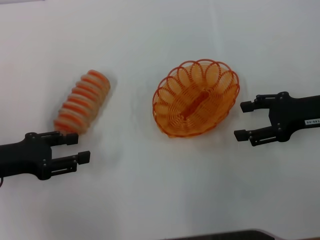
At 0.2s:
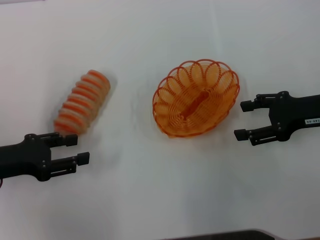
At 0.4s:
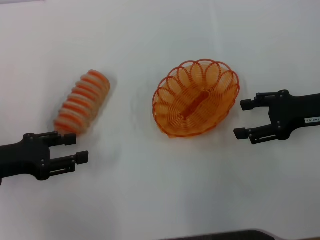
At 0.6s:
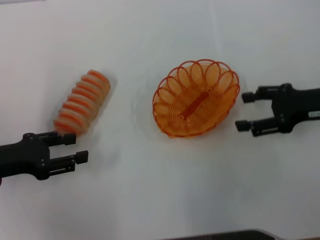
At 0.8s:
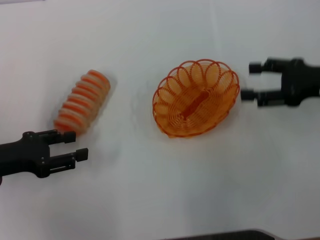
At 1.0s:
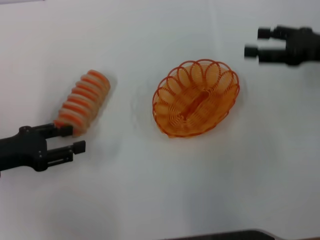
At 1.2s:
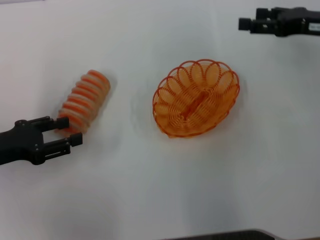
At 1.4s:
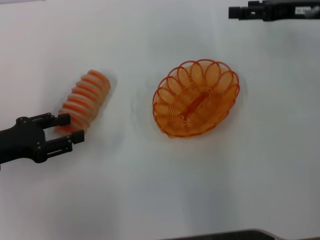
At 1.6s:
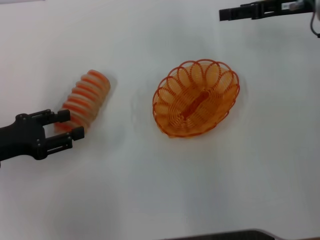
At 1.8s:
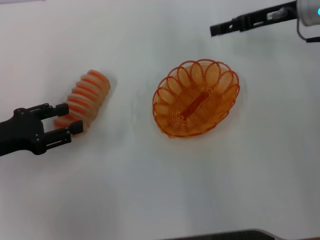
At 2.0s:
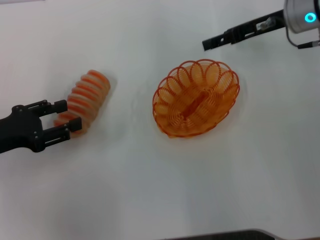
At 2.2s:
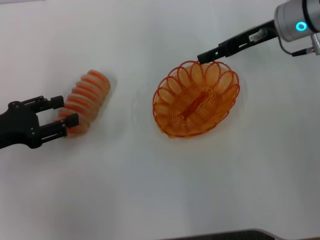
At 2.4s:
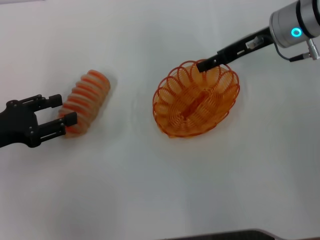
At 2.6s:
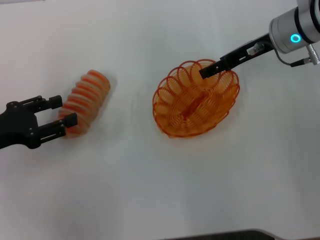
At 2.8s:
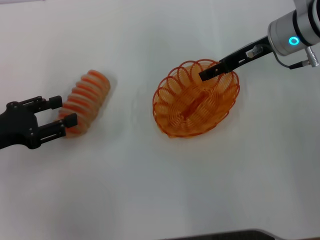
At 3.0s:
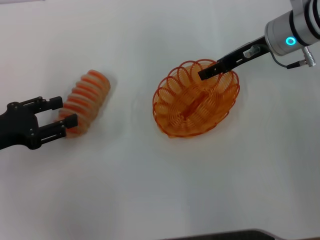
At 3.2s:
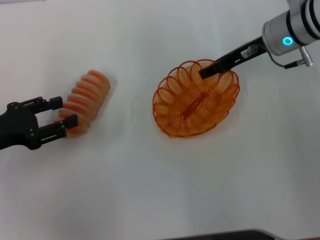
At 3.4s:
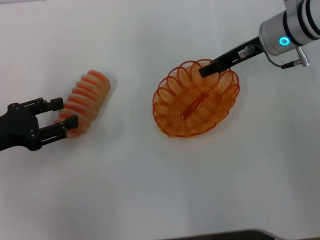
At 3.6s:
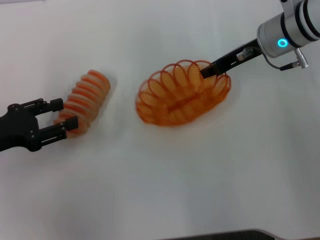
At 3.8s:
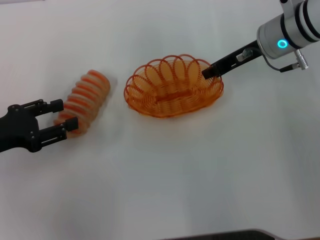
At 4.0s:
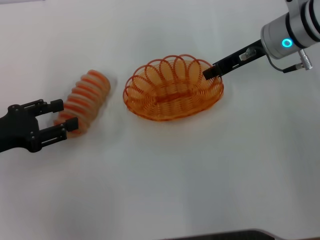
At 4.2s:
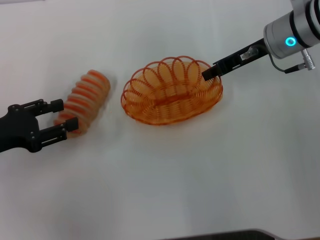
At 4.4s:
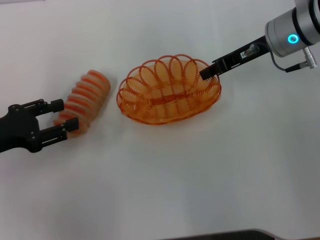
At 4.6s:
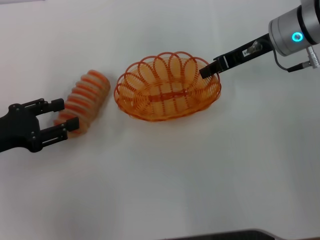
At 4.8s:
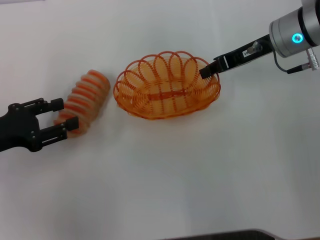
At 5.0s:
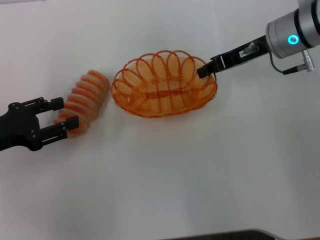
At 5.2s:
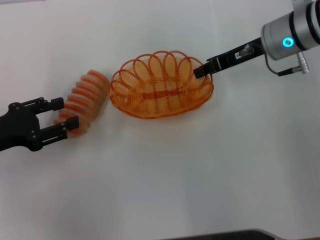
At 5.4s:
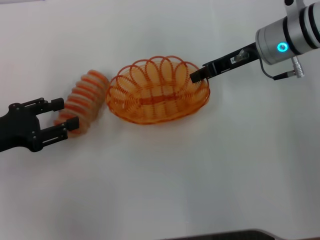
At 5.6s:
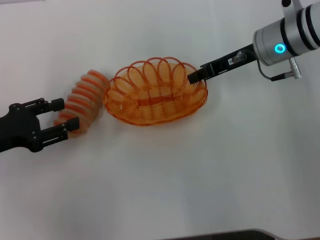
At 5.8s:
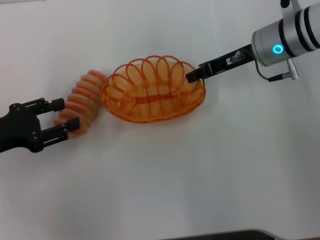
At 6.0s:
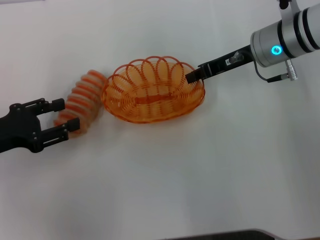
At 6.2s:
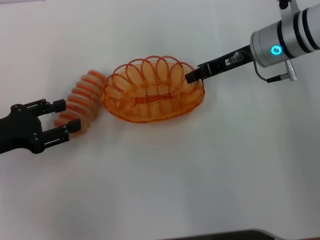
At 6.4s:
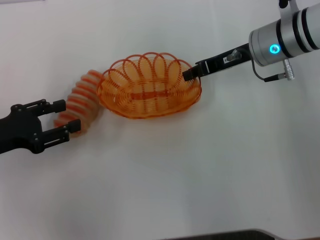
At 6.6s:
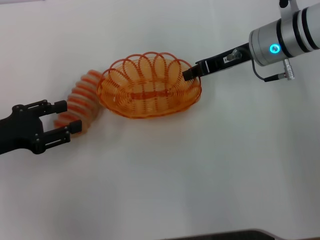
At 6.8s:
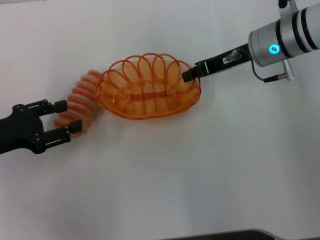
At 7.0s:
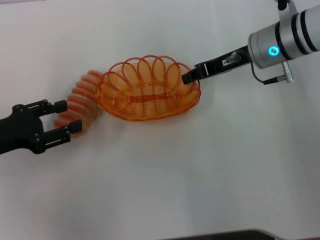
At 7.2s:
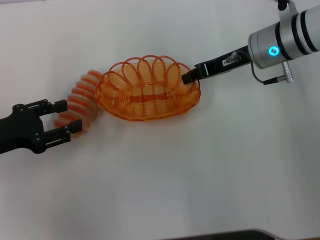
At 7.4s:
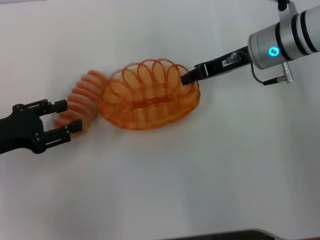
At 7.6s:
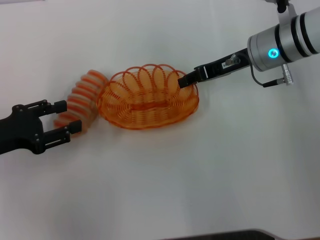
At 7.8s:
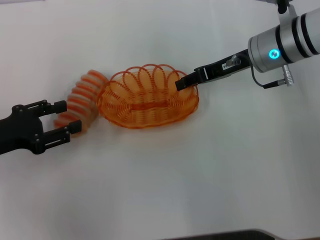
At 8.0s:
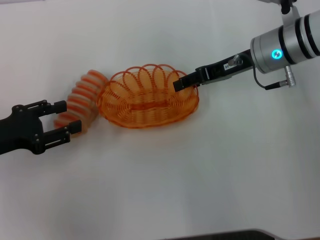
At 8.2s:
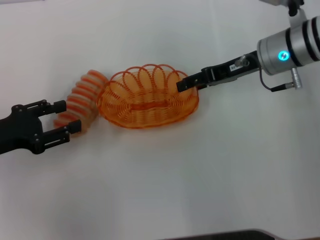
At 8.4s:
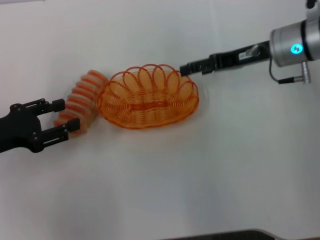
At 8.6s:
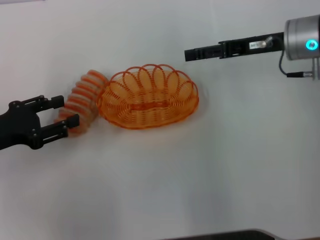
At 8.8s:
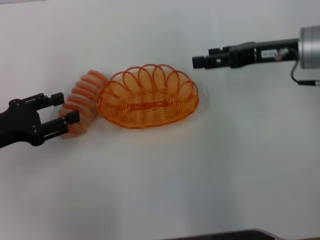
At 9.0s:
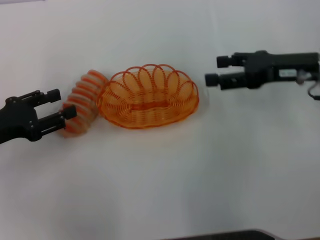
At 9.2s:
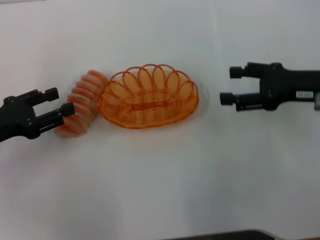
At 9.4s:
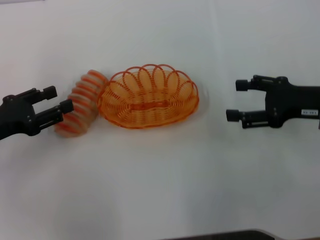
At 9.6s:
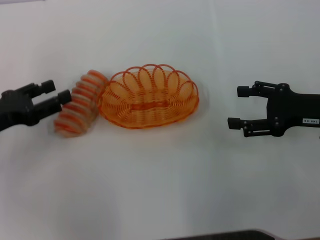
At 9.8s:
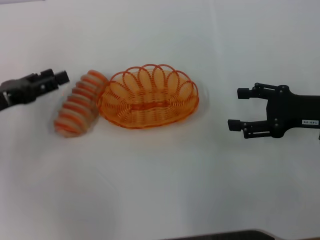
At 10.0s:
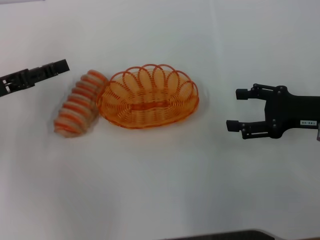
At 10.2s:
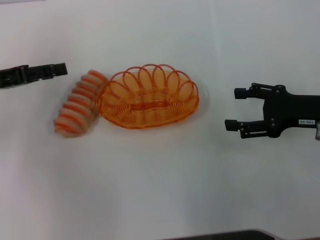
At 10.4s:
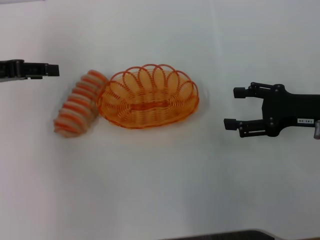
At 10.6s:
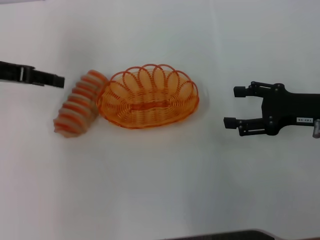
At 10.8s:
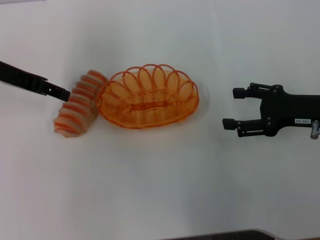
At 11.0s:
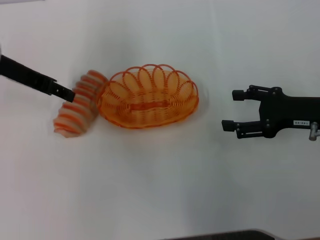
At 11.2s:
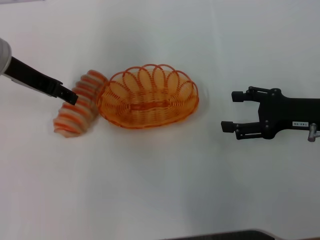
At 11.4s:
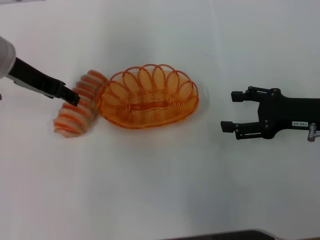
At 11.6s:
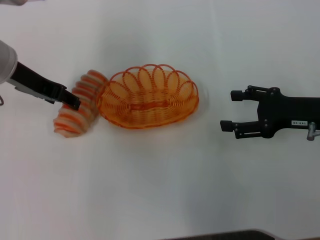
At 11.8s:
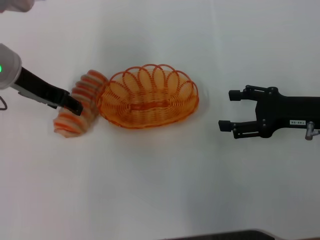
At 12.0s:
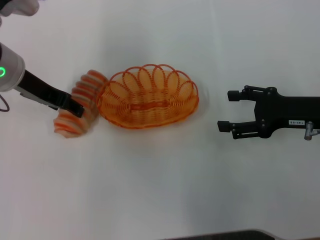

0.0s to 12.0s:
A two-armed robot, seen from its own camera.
Step, 0.0s to 4.0s: Pick up the basket with the right gripper.
Step, 4.4s to 8.2s: Place the basket in the center of view with the right gripper.
0.0s to 1.6s: The right gripper travels forward and upward by about 15 cm.
1.6s to 3.0s: The right gripper moves to the left, some 5 cm.
3.0s to 4.4s: The right gripper closes its fingers.
4.4s to 6.0s: There are only small adjustments of the grippers.
6.0s to 7.6s: Neither gripper changes place.
7.6s to 9.0s: The right gripper is displaced to the right and backward by approximately 10 cm, and opens.
9.0s to 10.4s: The right gripper is displaced backward by approximately 5 cm, while the left gripper is displaced forward and upward by about 10 cm.
10.4s to 12.0s: The left gripper travels to the right by about 10 cm.

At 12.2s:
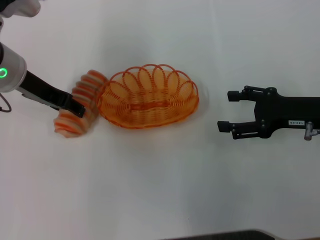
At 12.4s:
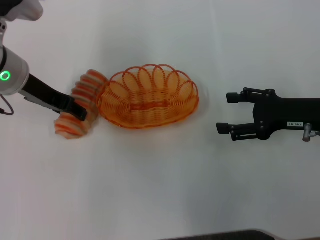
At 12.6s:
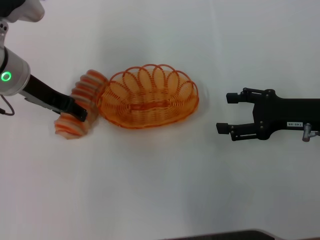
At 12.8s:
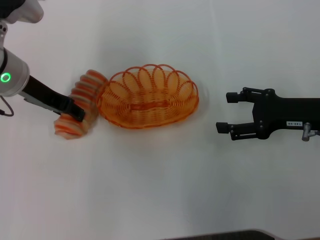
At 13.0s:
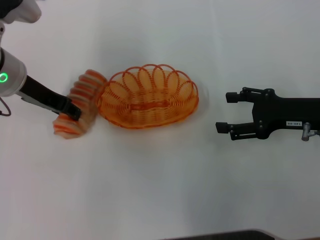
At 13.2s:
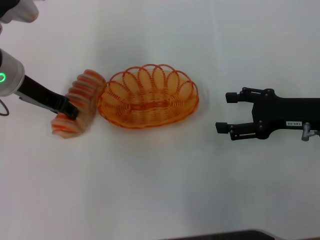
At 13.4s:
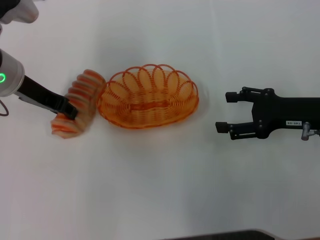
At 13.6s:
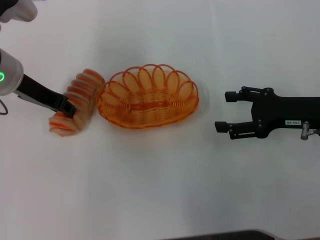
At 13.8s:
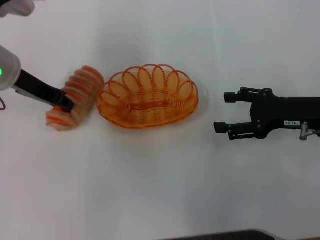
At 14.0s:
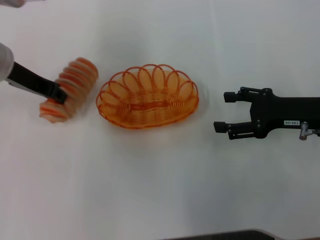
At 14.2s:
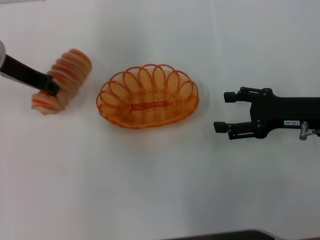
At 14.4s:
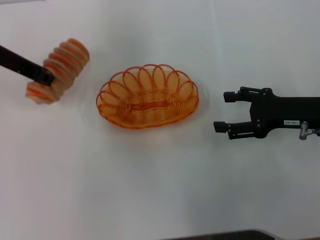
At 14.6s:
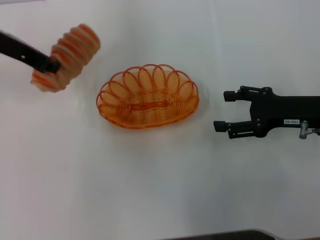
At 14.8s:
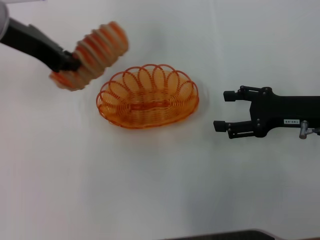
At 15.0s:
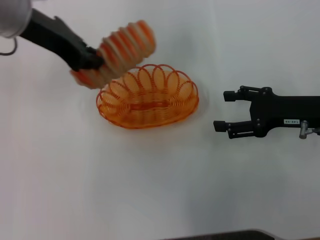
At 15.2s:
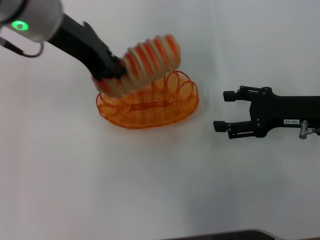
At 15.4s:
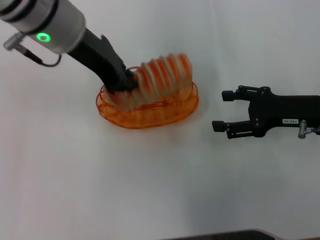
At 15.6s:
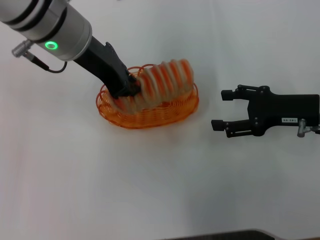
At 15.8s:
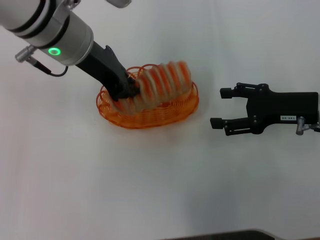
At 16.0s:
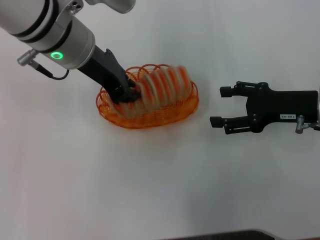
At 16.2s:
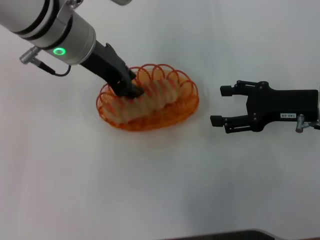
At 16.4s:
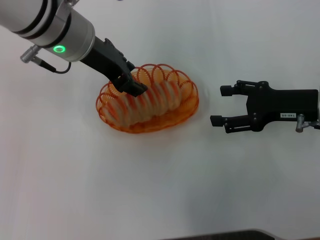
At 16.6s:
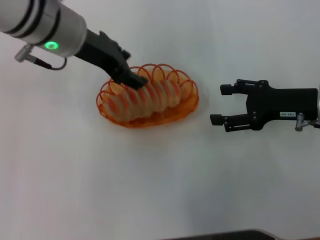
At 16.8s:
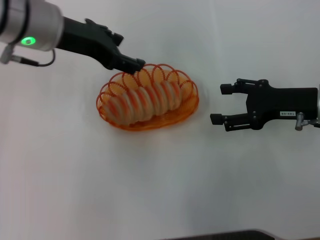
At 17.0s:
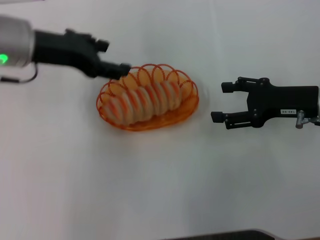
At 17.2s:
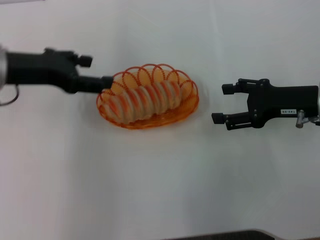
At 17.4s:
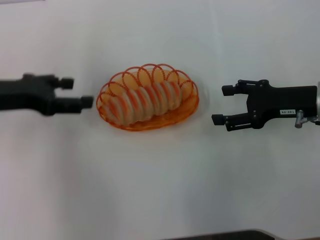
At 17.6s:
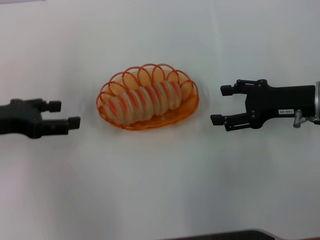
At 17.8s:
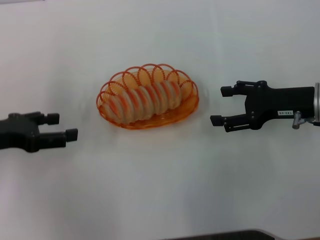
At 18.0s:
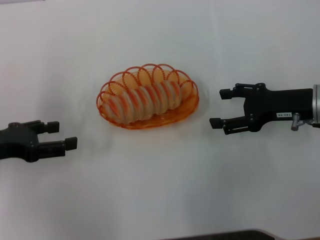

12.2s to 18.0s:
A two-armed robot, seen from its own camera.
Step, 14.0s to 16.6s: Place the long bread into the basket with the left gripper.
12.2s to 13.6s: The left gripper closes its fingers.
13.6s to 15.0s: The left gripper moves upward, some 10 cm.
15.0s to 16.6s: The left gripper shifts some 5 cm to the right, and opens.
16.6s to 18.0s: The left gripper goes some 25 cm to the left, downward and backward, and opens.
